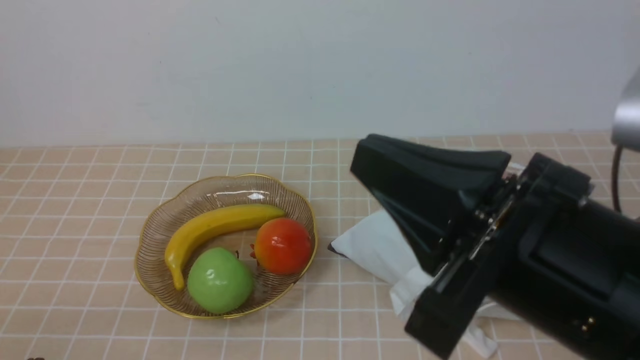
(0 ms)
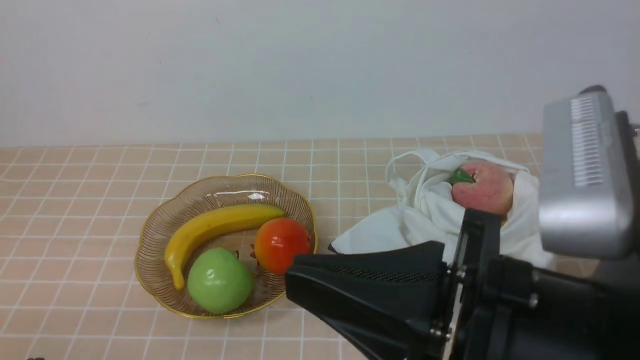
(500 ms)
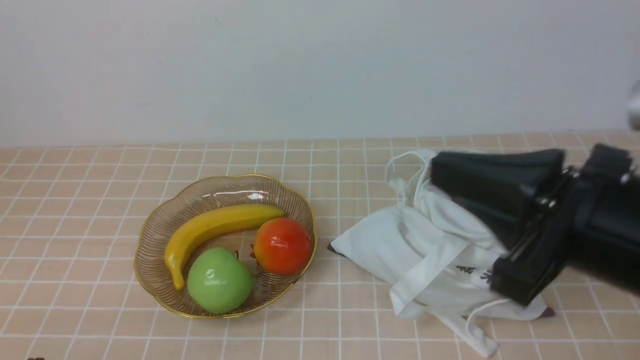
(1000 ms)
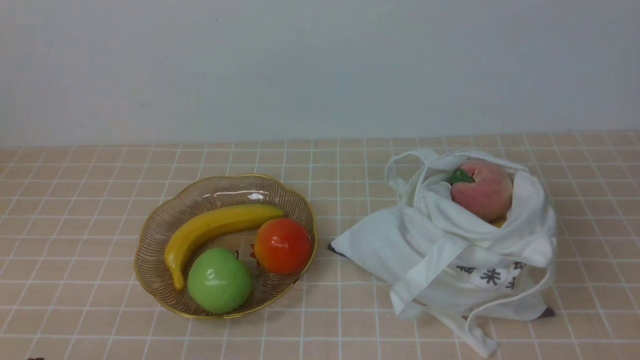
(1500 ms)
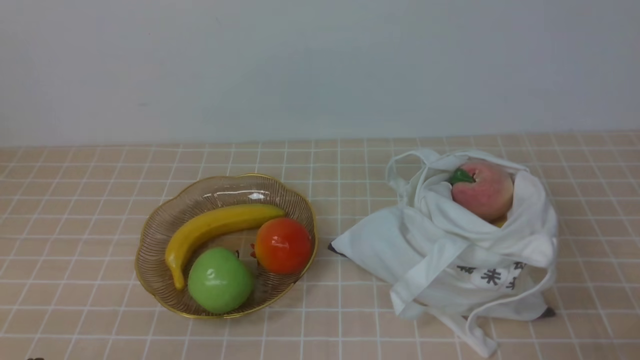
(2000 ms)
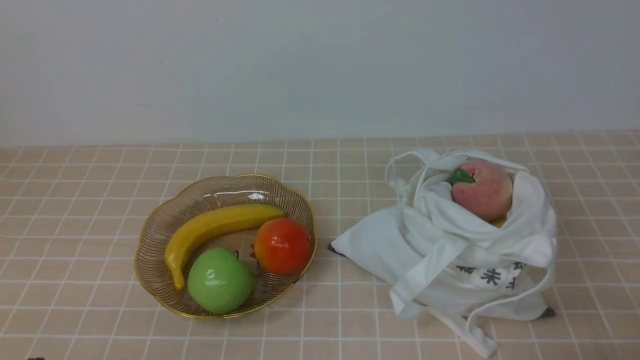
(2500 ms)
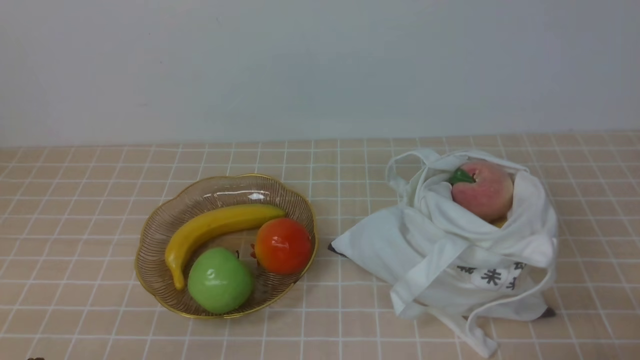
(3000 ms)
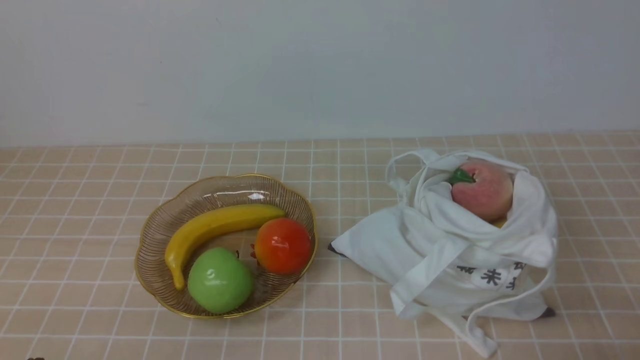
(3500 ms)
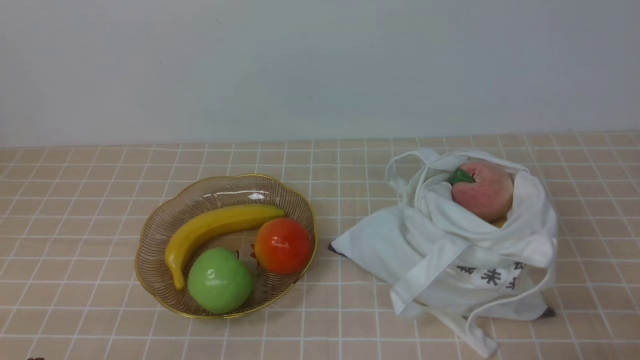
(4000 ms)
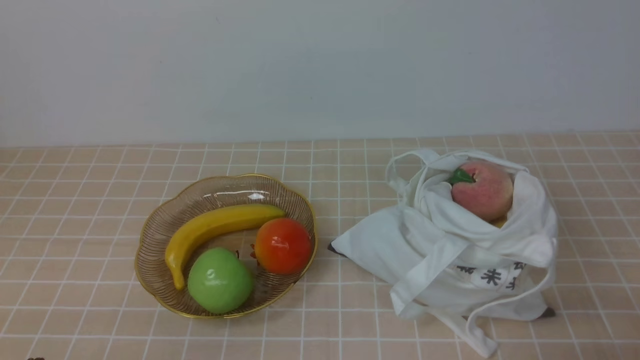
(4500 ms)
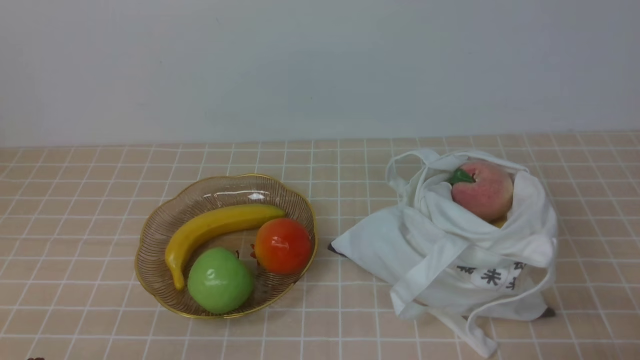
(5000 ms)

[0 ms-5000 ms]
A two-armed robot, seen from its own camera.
0 ms to 2500 ms: The right gripper travels to the right and downward by roughly 25 cm.
2500 ms to 5000 ms: Neither gripper changes place.

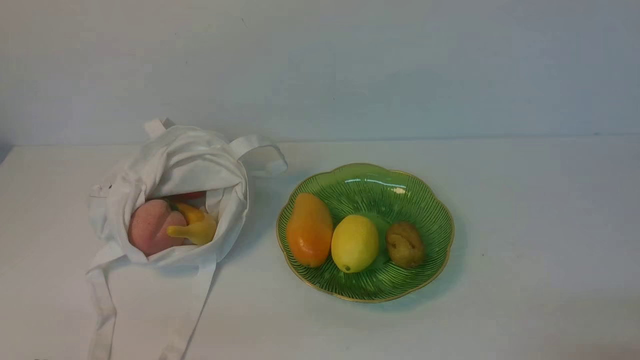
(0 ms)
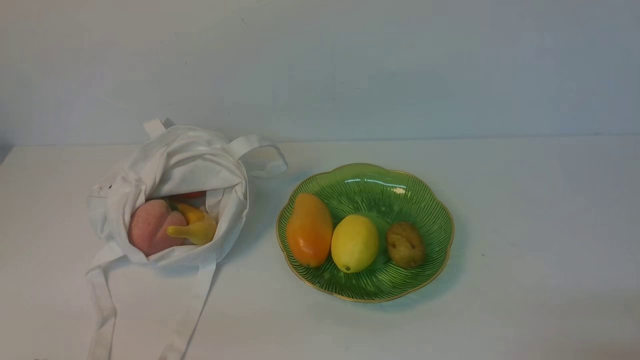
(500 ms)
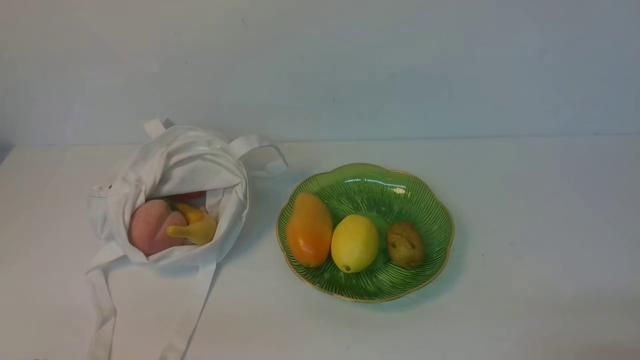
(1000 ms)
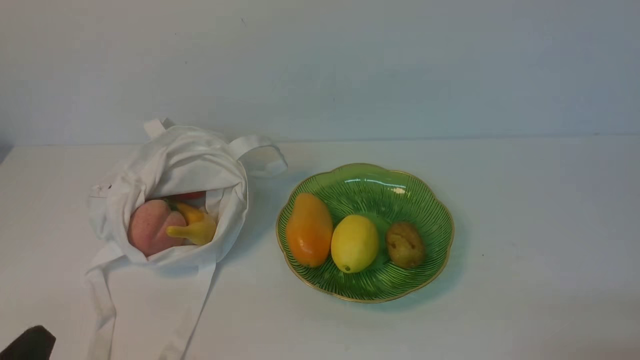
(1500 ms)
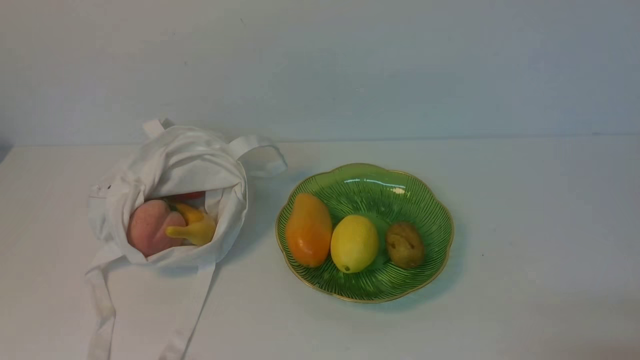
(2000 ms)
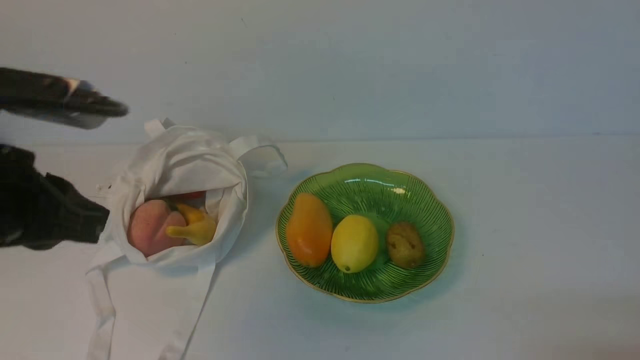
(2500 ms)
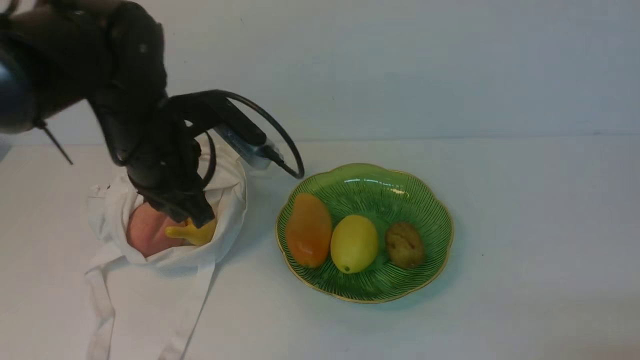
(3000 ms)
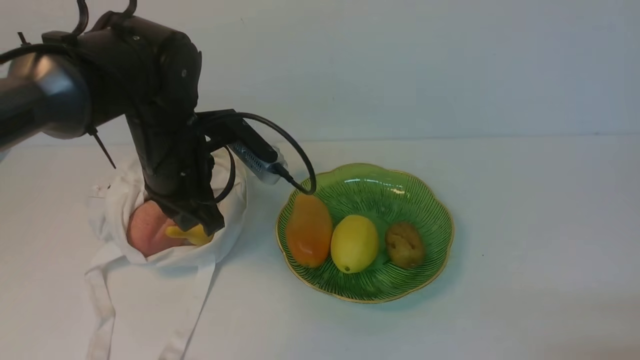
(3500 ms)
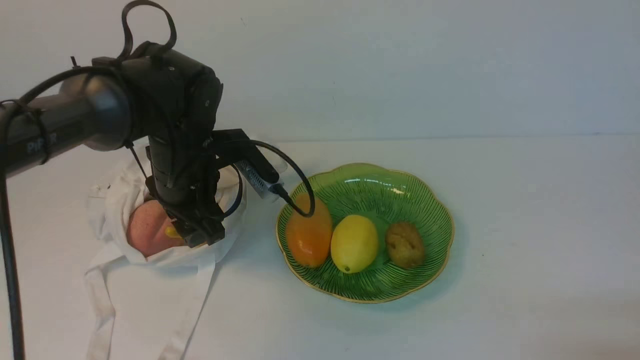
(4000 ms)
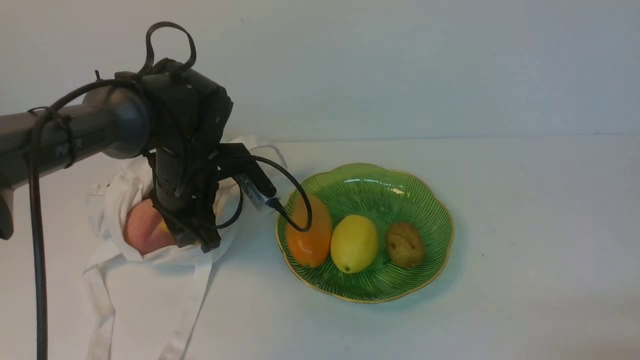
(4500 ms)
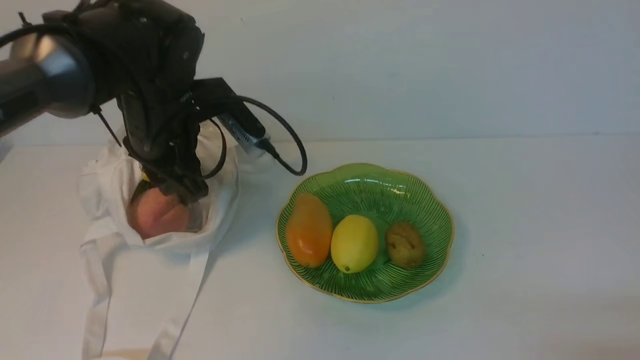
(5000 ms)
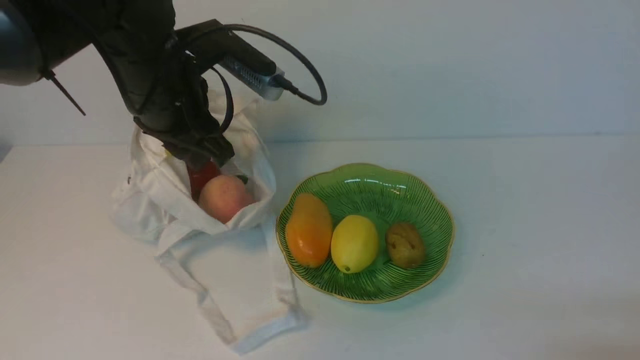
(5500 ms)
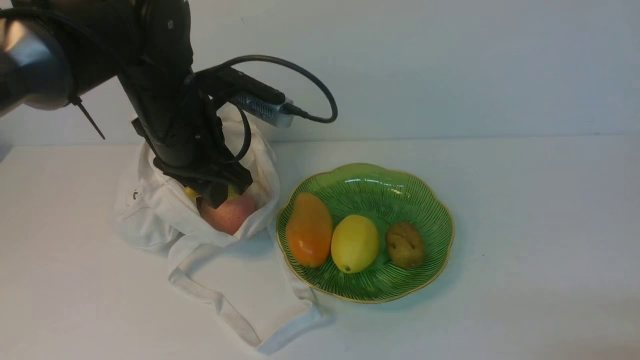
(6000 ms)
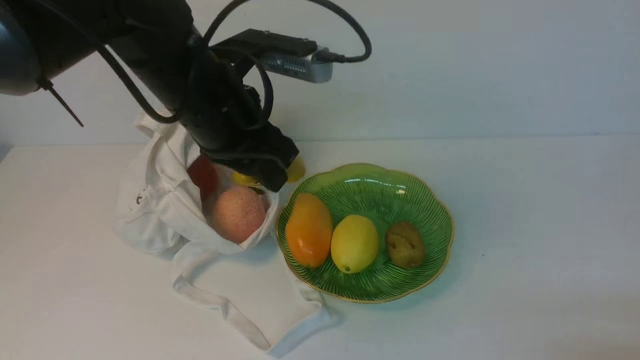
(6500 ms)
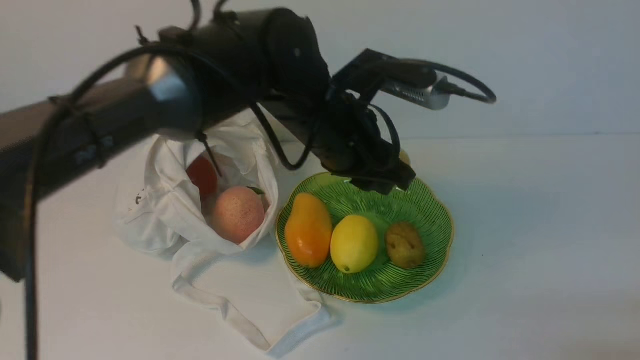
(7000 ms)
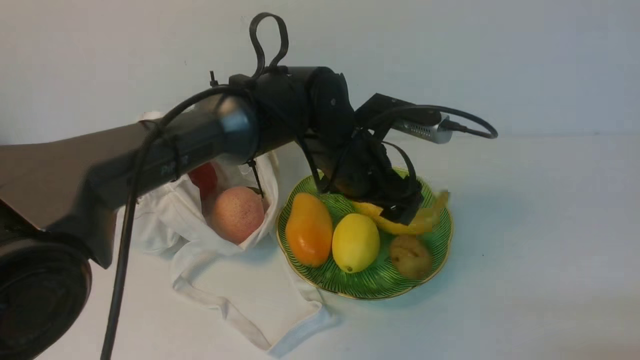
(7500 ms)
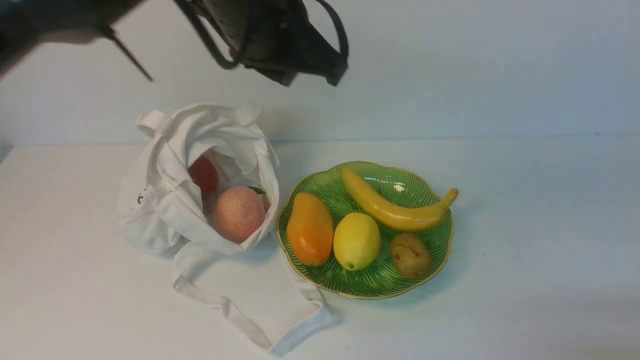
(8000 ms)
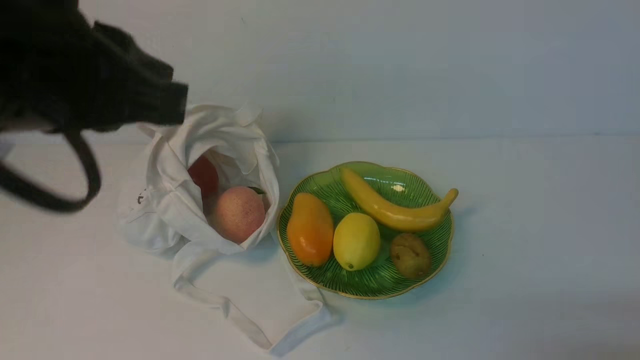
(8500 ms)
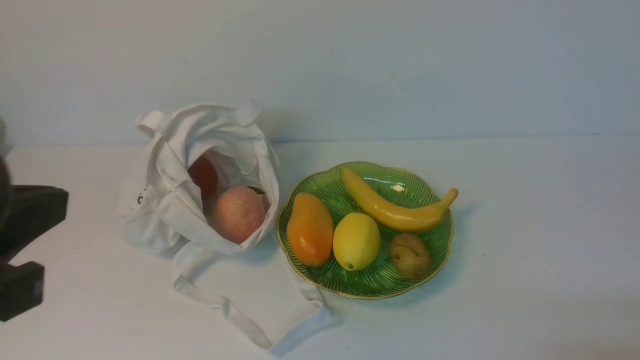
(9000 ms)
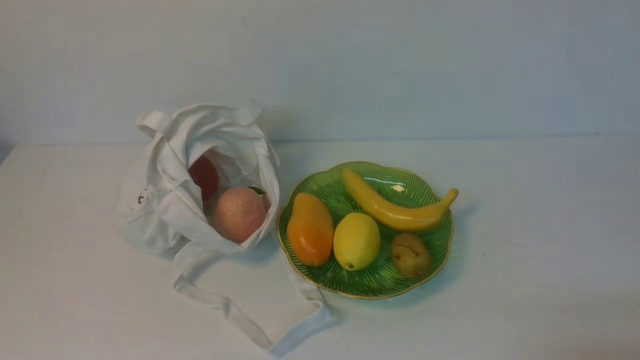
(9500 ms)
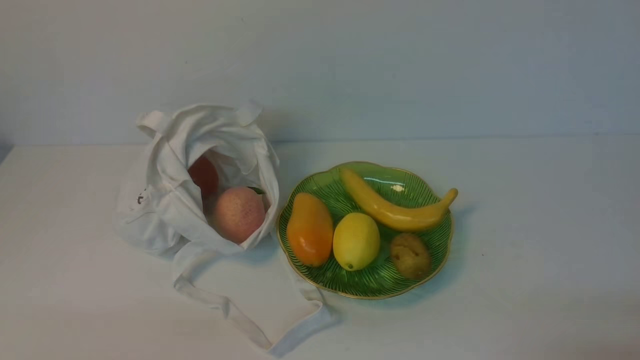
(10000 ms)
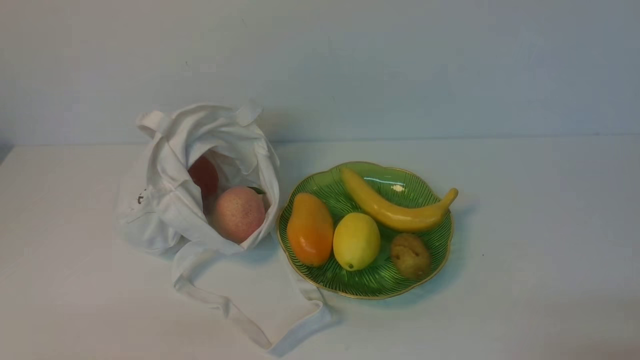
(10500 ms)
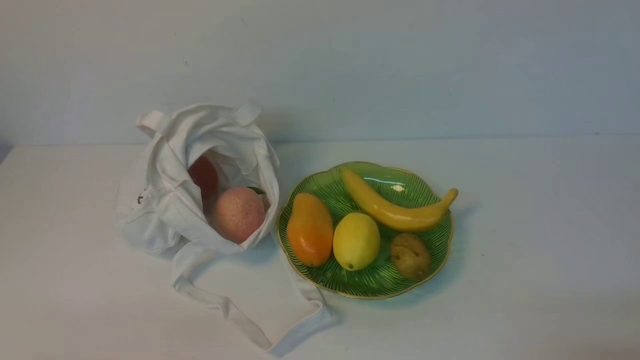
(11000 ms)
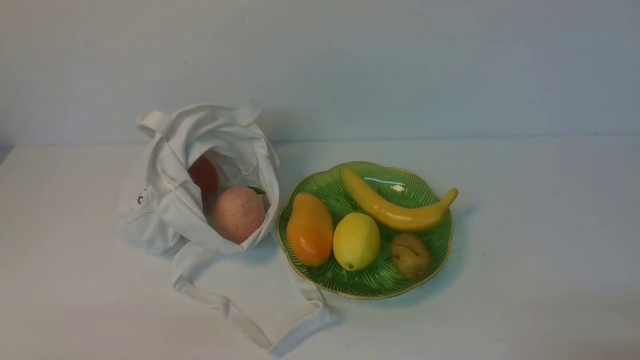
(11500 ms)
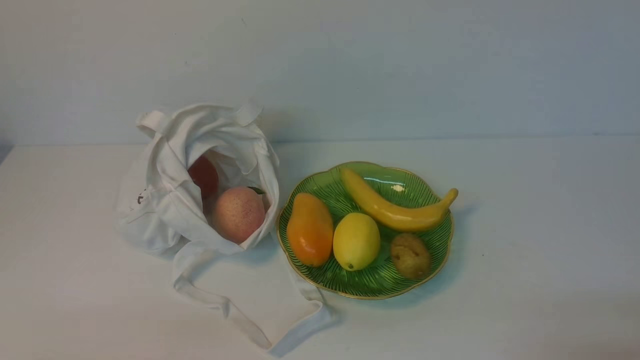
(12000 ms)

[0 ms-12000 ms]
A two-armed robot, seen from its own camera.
Step, 0 ms to 6000 ms: use the left arm to grab a banana from the bag.
Step, 6500 ms to 7500 ms: use the left arm to put the banana into the empty plate on the right.
2000 ms to 4000 ms: The left gripper is displaced forward by roughly 30 cm, and opens up.
4000 ms to 6000 ms: The left gripper is displaced upward by some 5 cm.
6000 ms to 8000 ms: The left gripper is displaced to the right and upward by roughly 10 cm, and opens, then closes again.
8000 ms to 10000 ms: The left gripper moves backward, to the left and downward, roughly 40 cm, and closes up.
